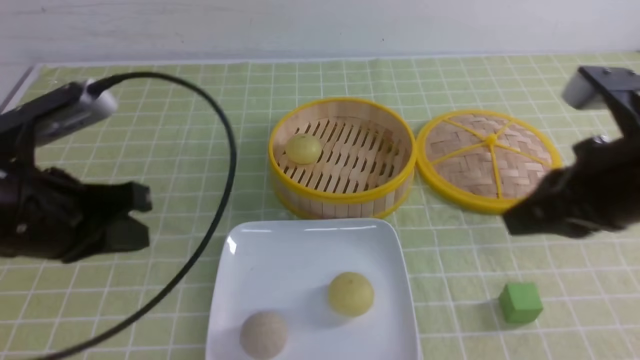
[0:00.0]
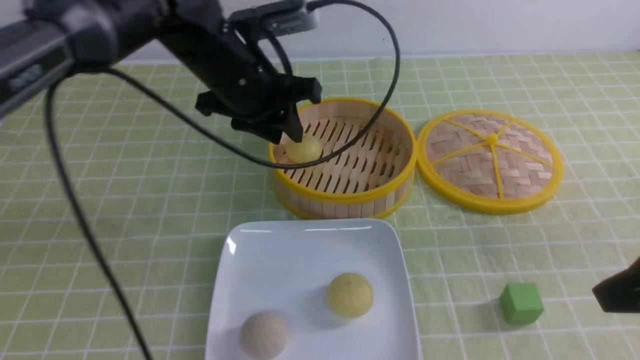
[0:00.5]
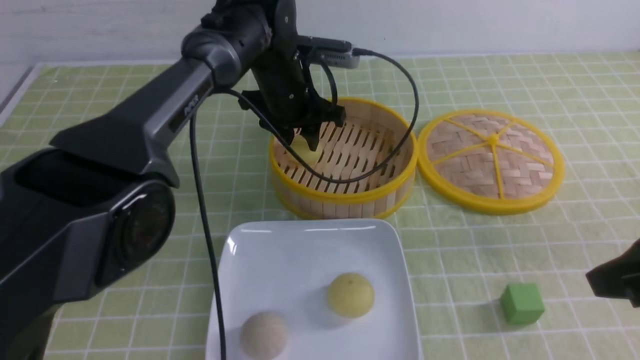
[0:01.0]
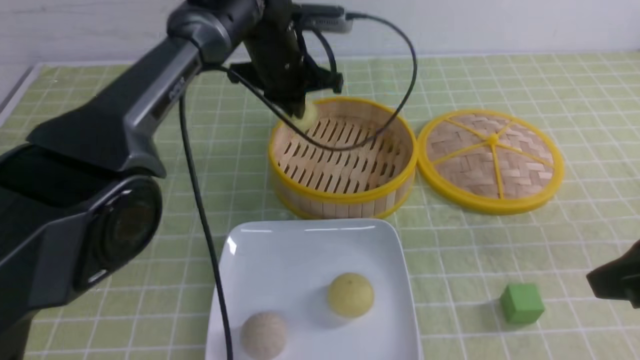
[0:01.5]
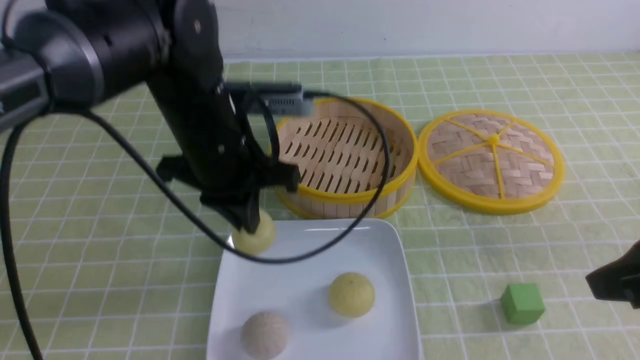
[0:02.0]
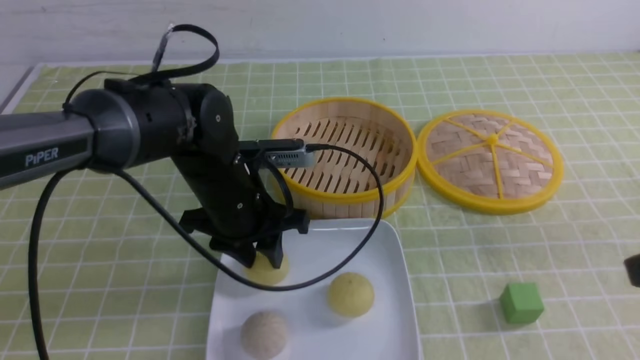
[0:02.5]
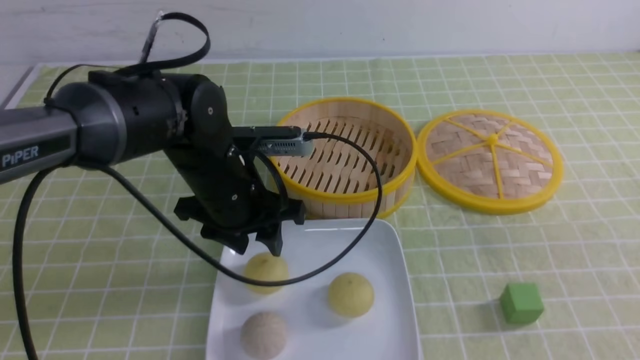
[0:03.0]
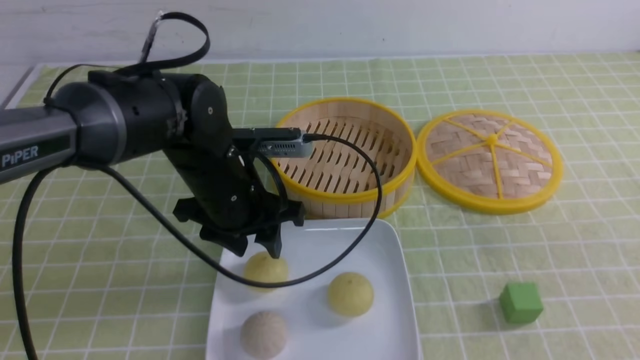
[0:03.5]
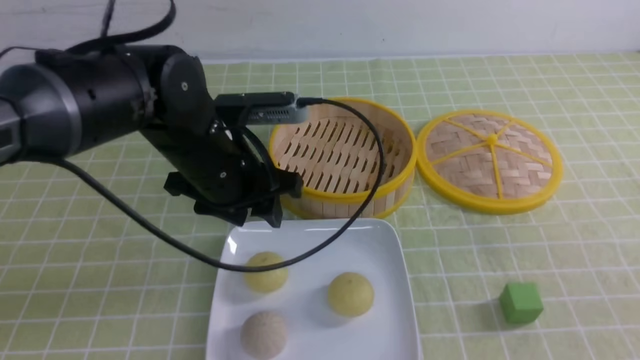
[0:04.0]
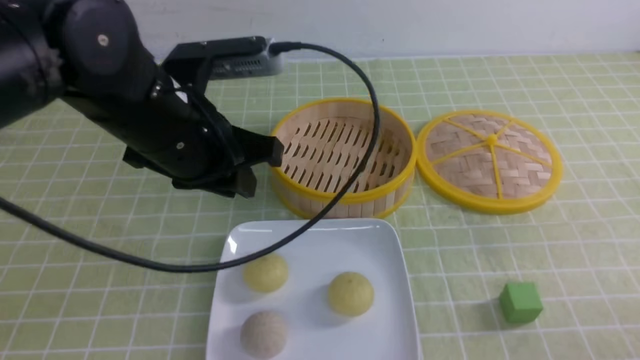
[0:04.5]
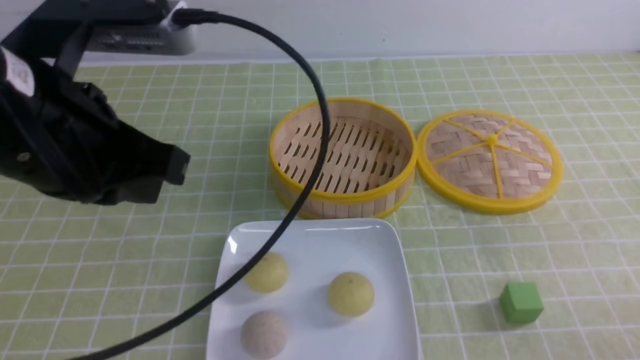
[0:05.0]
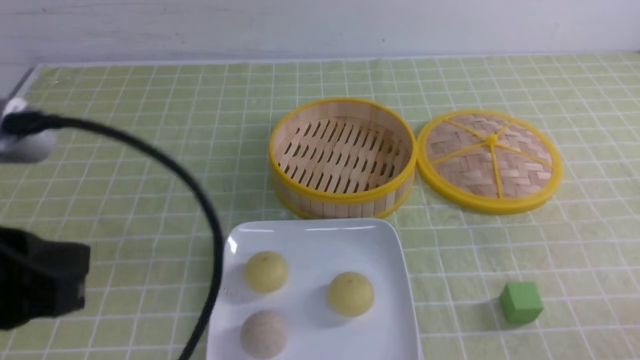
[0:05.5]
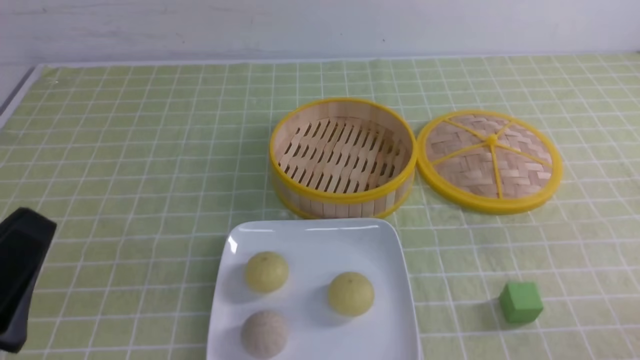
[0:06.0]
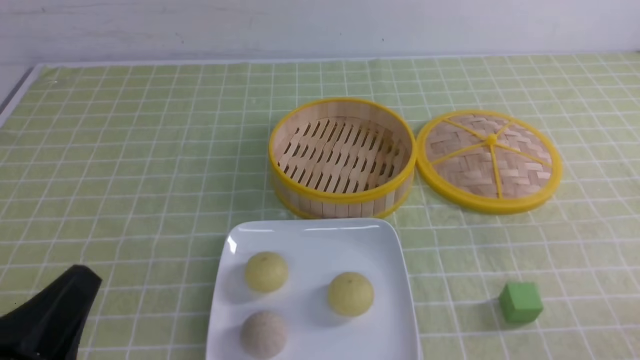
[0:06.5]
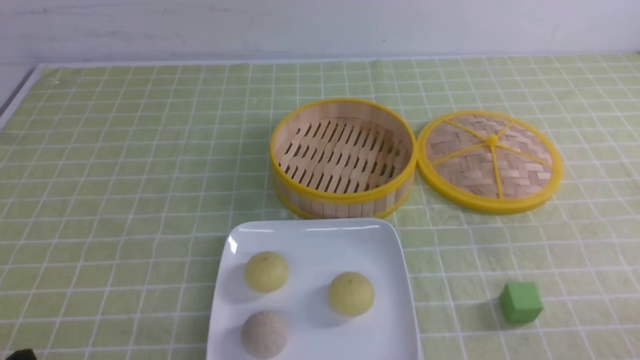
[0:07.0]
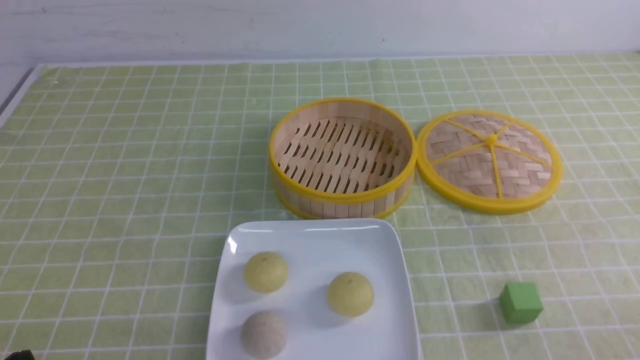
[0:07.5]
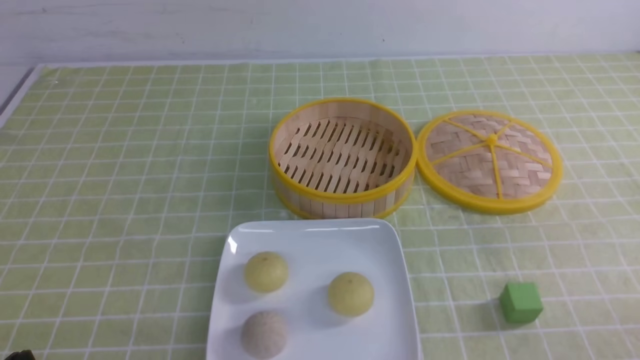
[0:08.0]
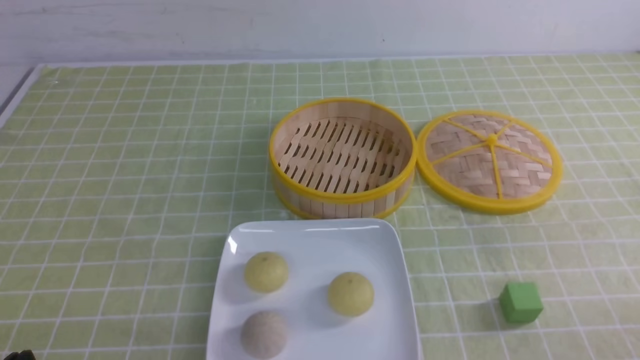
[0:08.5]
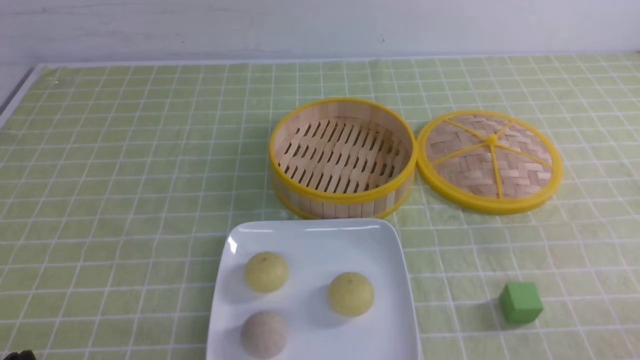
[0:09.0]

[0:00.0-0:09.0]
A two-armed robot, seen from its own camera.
Step, 0:00.0 to 0:01.0: use the left arm to grab the steamed stuffed bun that is closest to it.
Step, 0:01.5 to 0:02.5: use the left arm to put the steamed stuffed bun into the plate.
0:00.0 to 0:02.0: The left gripper heads to the right and forward, covering some 15 cm, and opens and closes again; the right gripper heads backward, covering about 5 cm.
0:02.0 to 0:04.5: The right gripper travels downward and backward by about 15 cm. Meanwhile the left gripper shifts approximately 10 cm backward and upward, and opens, then closes again.
0:04.5 to 0:07.0: The left gripper goes approximately 30 cm backward, downward and to the left.
0:07.0 to 0:09.0: The two grippers keep their place.

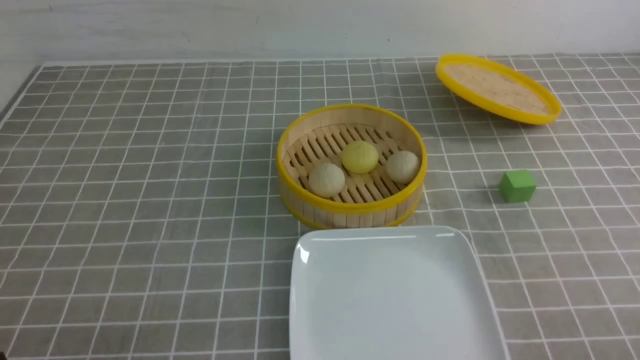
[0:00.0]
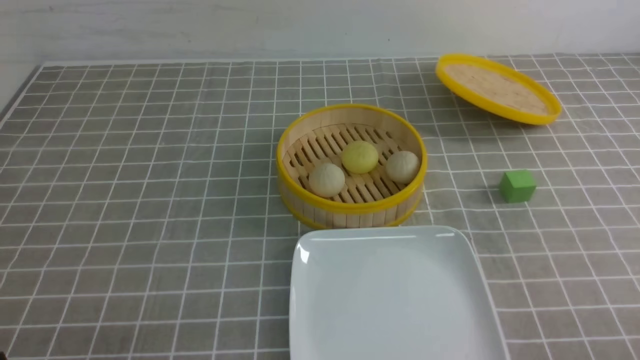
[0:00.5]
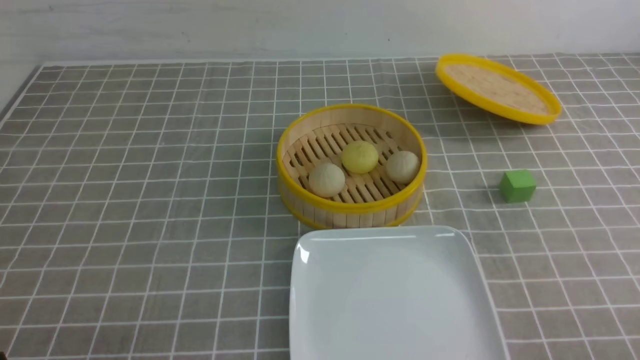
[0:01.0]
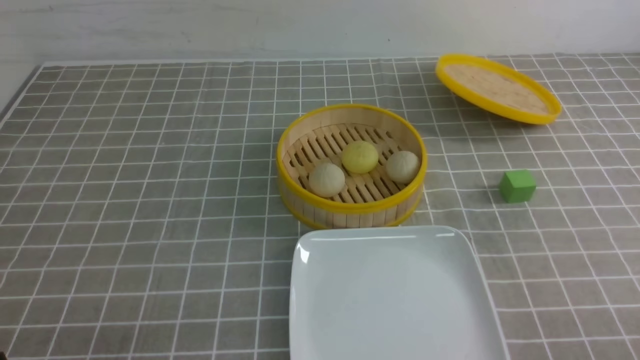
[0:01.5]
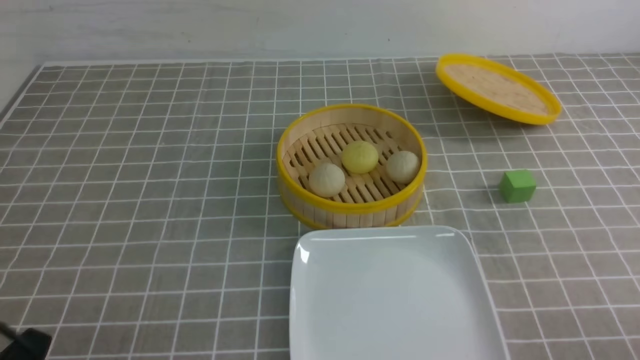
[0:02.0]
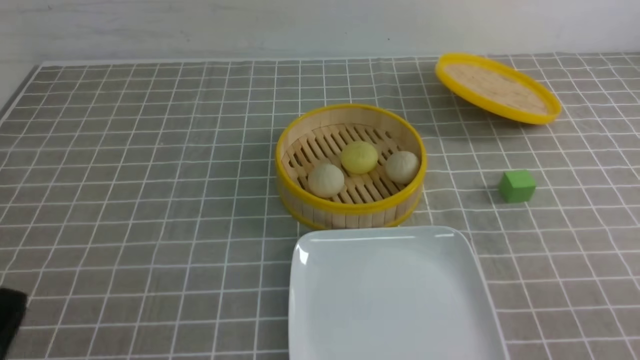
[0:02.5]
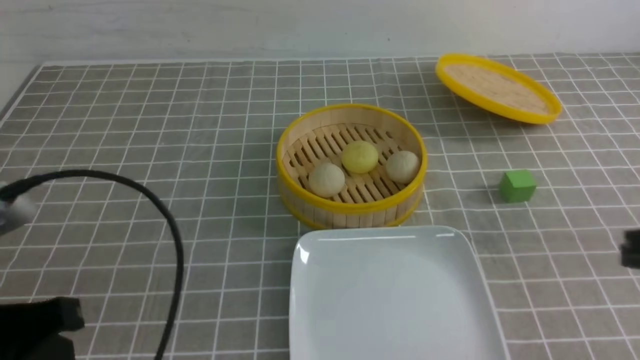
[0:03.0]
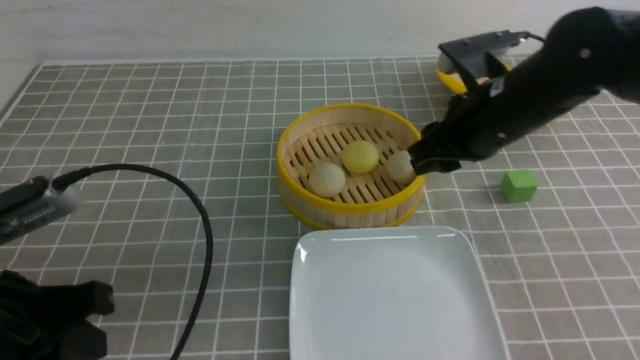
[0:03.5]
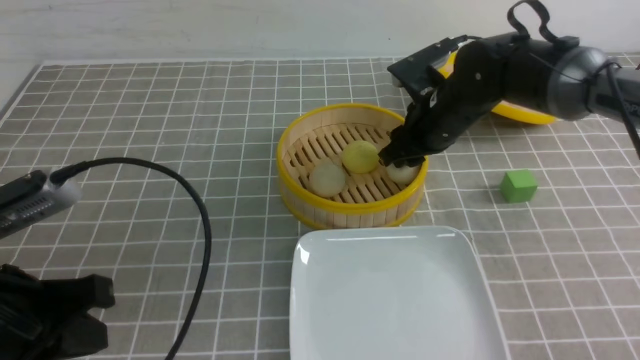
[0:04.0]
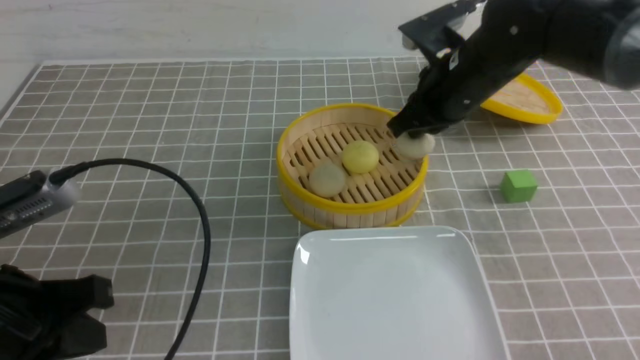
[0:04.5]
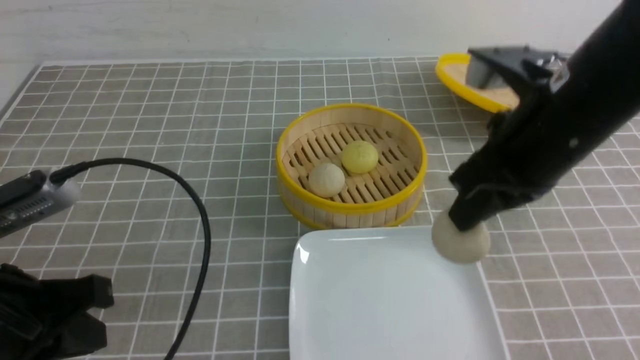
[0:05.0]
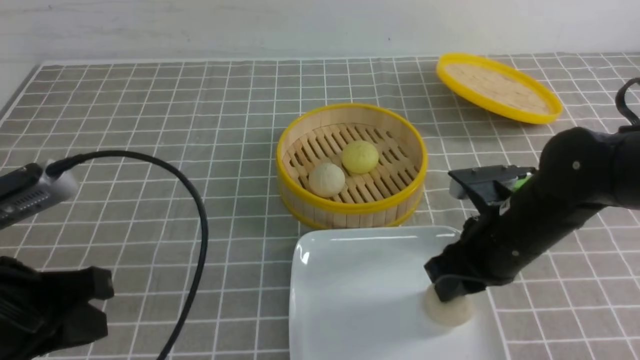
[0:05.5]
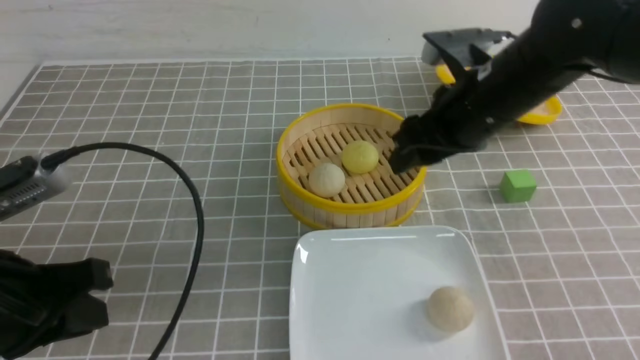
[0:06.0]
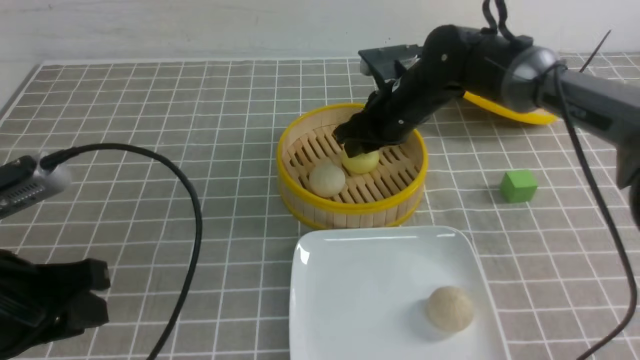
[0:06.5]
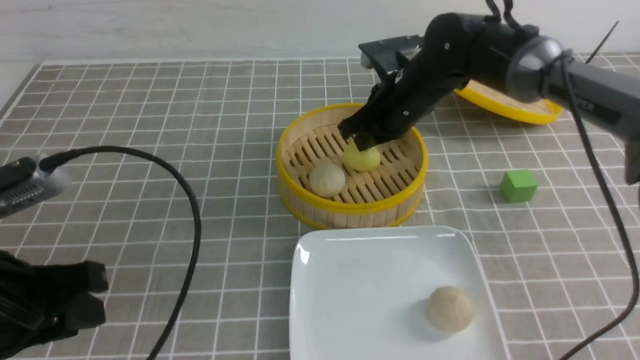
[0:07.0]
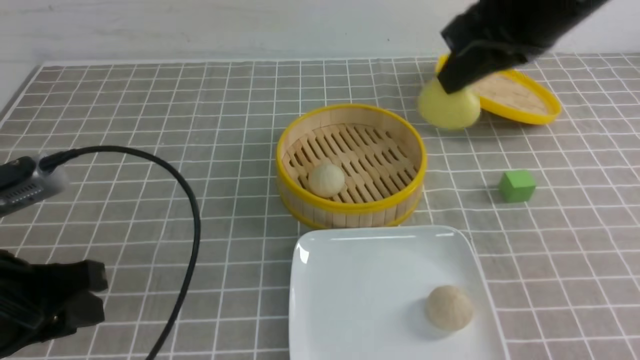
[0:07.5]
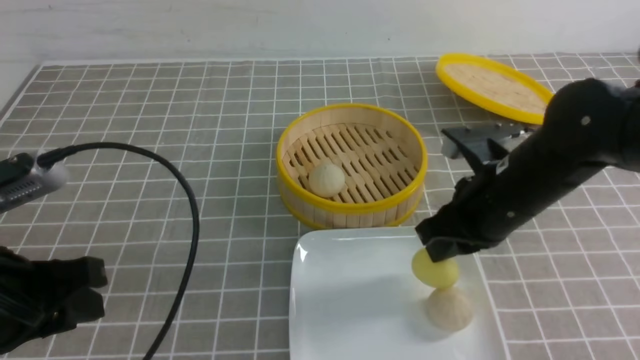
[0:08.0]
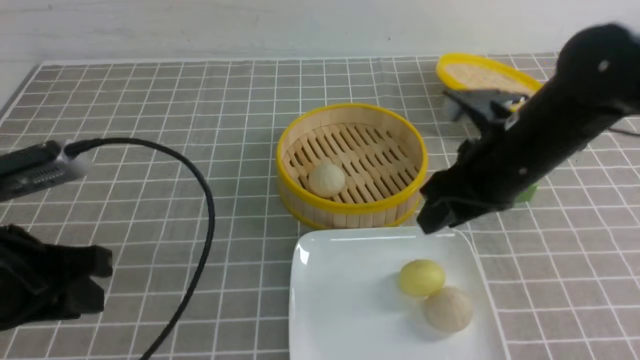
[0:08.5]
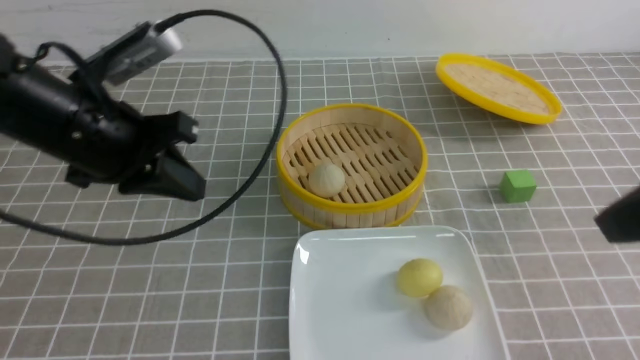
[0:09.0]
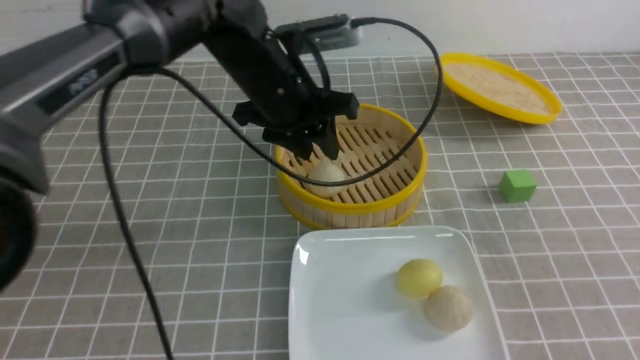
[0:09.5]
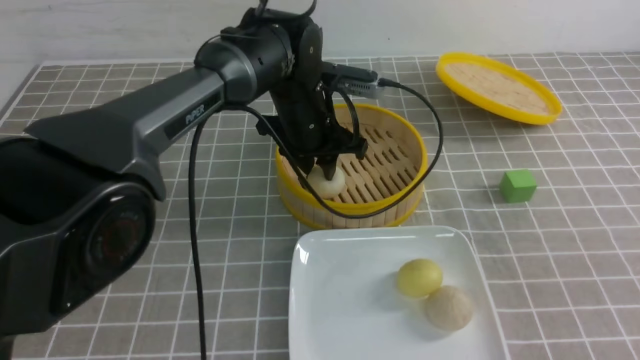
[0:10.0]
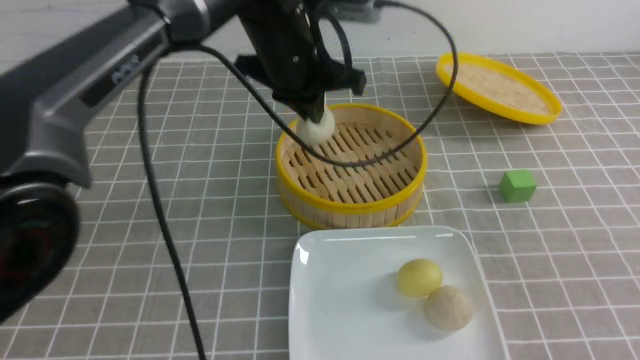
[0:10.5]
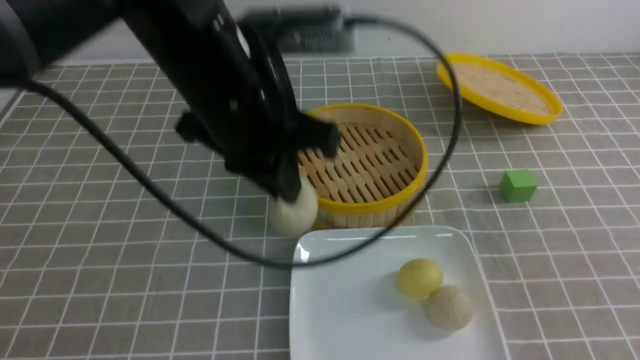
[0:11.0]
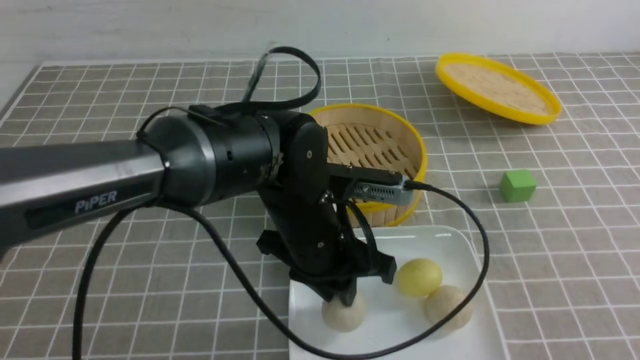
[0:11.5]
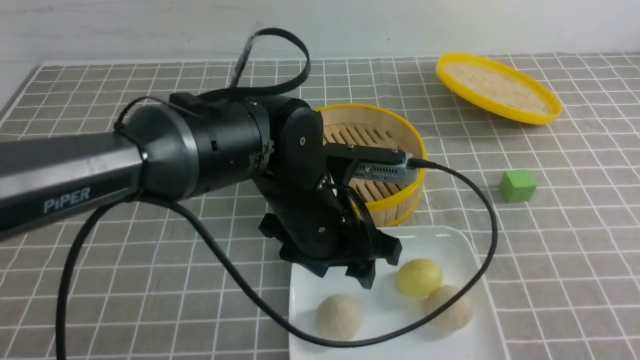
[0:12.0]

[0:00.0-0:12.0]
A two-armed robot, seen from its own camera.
Step, 0:00.0 to 0:04.0: use the right arm to grab the steamed stuffed bun that is closest to it.
Step, 0:04.5 to 0:05.5: use the right arm to put the steamed stuffed bun into the plate.
Step, 0:06.0 to 0:07.0: use the right arm to grab the steamed stuffed bun that is closest to it.
Step, 0:07.5 to 0:08.0: use the right arm to put the steamed stuffed bun into the plate.
Step, 0:08.5 to 0:10.0: use the left arm to grab the steamed stuffed bun that is closest to it.
Step, 0:10.5 to 0:11.5: use the left arm to put the steamed stuffed bun into the plate.
0:02.0 to 0:04.0: The right gripper is displaced forward and to the left by approximately 40 cm, and closes, then opens again; the left gripper heads upward and forward, covering approximately 15 cm, and closes up.
0:04.0 to 0:06.0: The right gripper heads backward and upward, covering roughly 10 cm, and closes, then opens again.
0:06.0 to 0:08.0: The right gripper goes up and down, approximately 15 cm each way, reversing 2 times, and closes its fingers.
0:08.0 to 0:10.0: The right gripper moves backward, to the right and upward, roughly 25 cm; the left gripper travels forward and to the right by roughly 35 cm, and closes, then opens again.
0:10.0 to 0:12.0: The right gripper travels backward and downward by some 10 cm; the left gripper goes approximately 15 cm backward, and opens its fingers.
